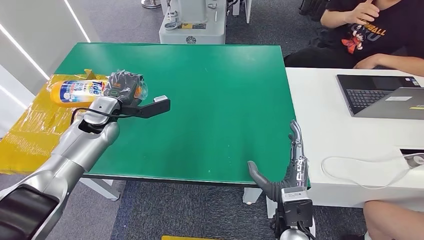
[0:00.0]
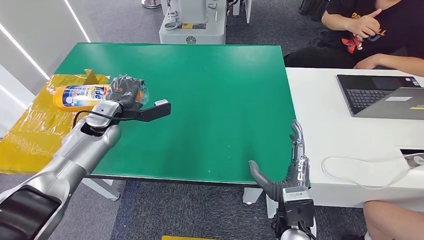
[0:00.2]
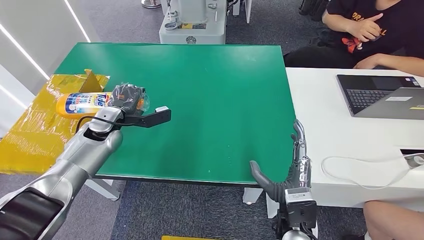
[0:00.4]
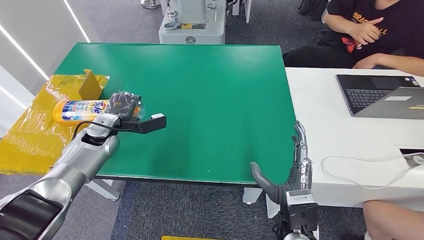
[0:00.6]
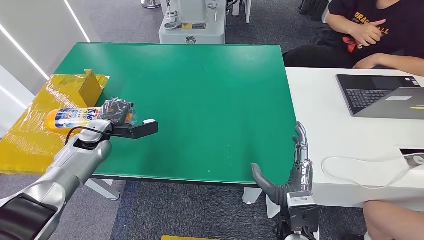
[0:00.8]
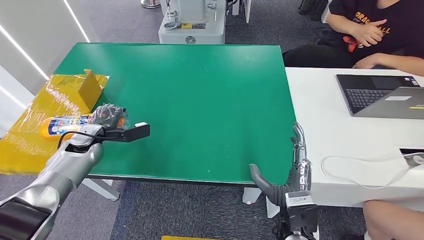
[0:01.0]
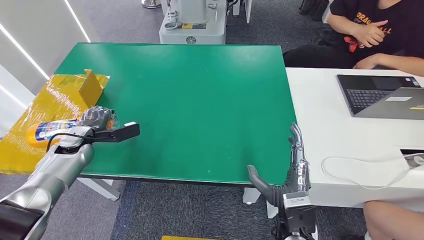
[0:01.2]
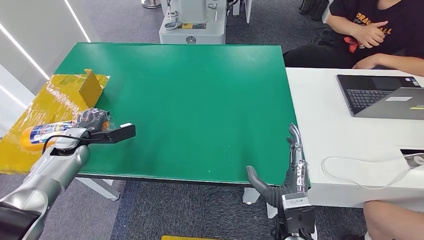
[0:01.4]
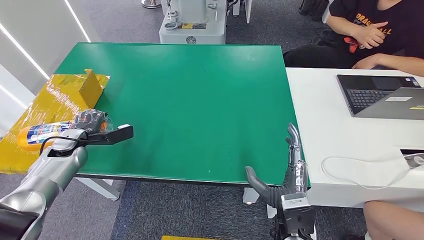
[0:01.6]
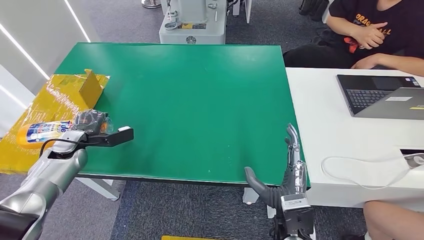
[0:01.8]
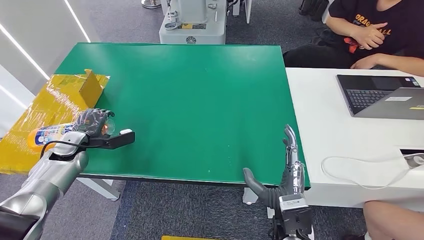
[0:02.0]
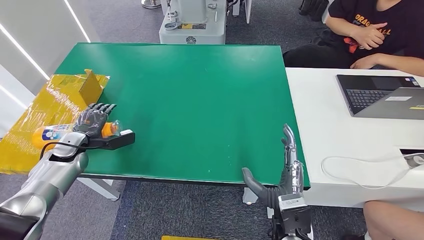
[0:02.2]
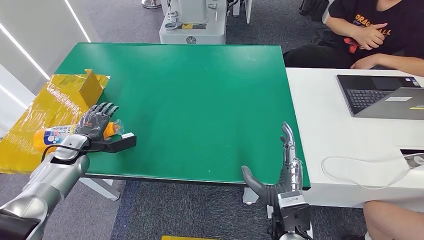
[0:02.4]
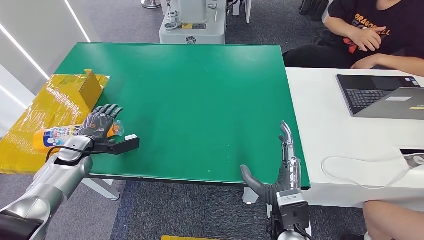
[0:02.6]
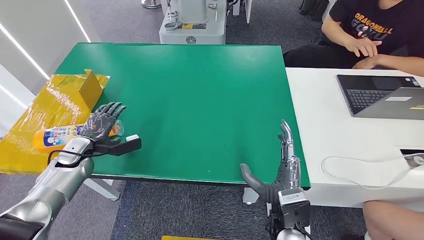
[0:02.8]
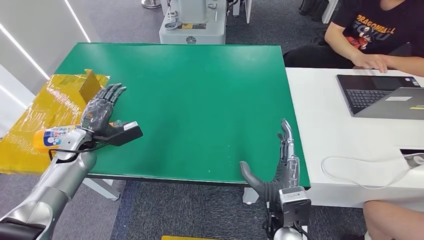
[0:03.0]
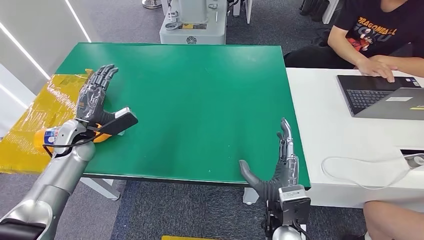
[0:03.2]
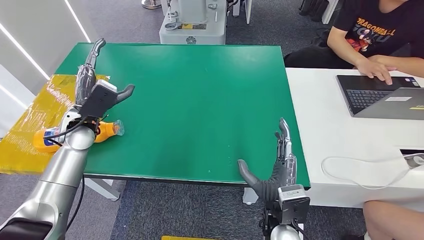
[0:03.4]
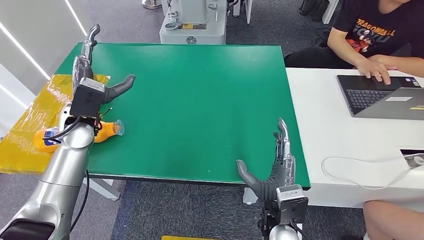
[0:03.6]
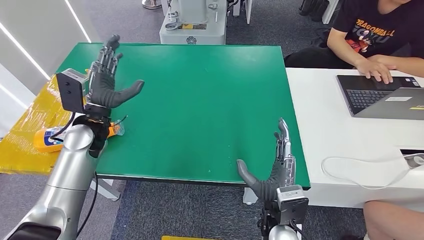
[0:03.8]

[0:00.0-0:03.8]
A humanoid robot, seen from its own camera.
Step, 0:00.0 to 0:03.8: Turn the bottle to the front side.
0:00.0 to 0:01.2: The left hand travels to the left and downward by about 15 cm.
0:01.2 to 0:02.6: The hands stay close to where they were, moving slightly.
0:02.6 to 0:03.8: The left hand goes about 20 cm to the right and upward.

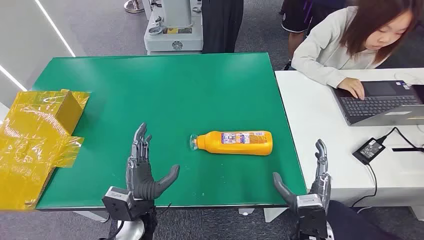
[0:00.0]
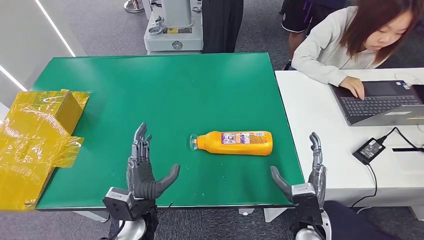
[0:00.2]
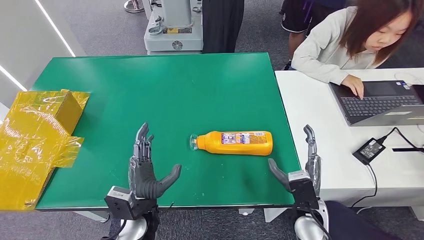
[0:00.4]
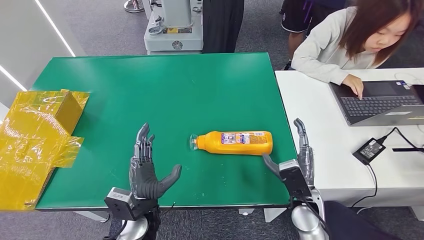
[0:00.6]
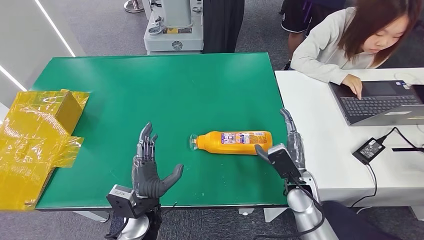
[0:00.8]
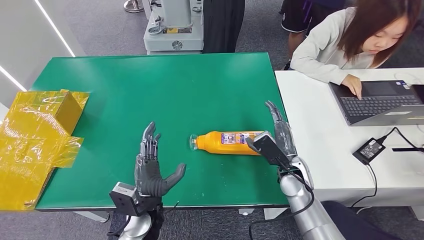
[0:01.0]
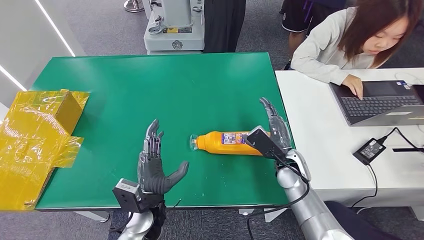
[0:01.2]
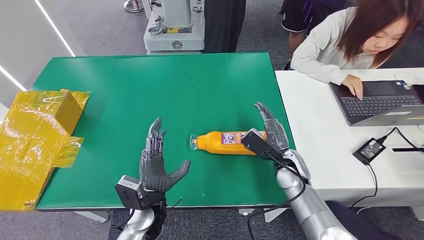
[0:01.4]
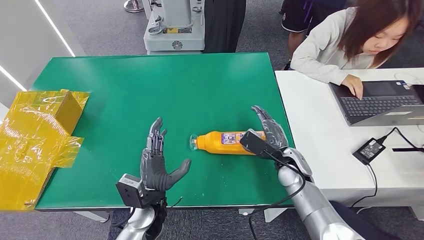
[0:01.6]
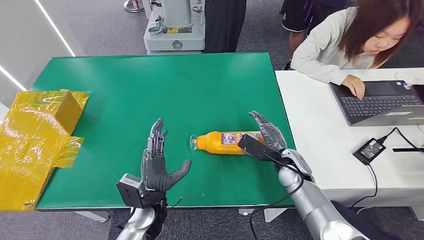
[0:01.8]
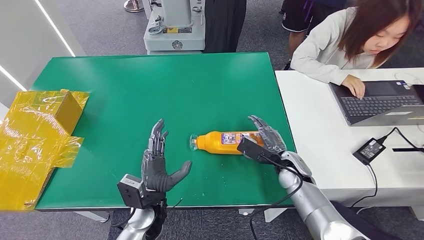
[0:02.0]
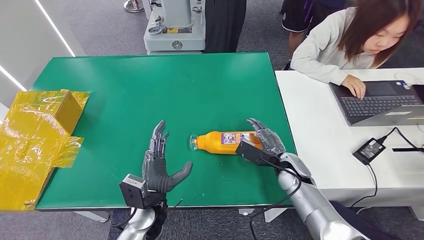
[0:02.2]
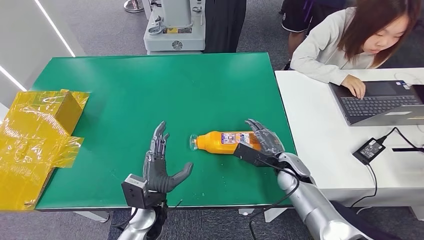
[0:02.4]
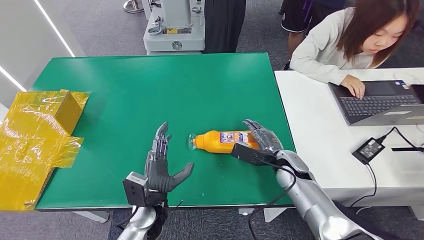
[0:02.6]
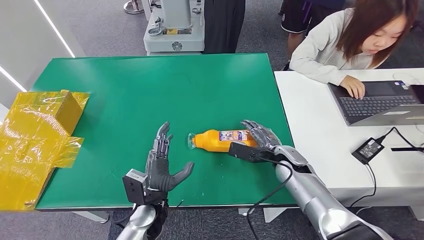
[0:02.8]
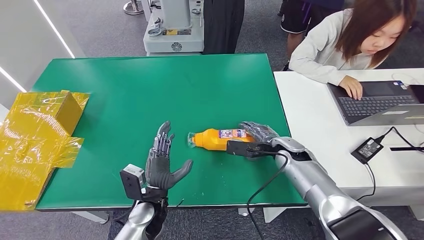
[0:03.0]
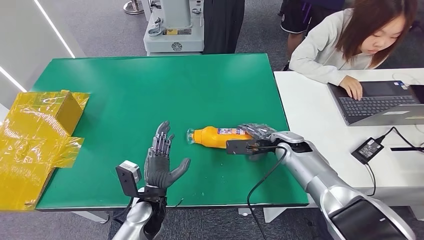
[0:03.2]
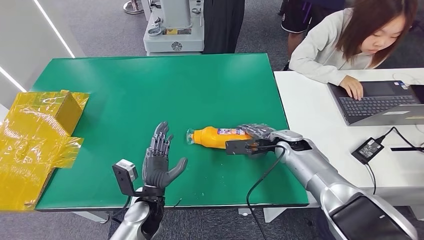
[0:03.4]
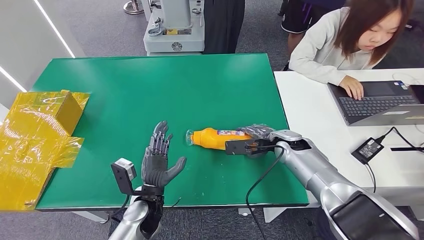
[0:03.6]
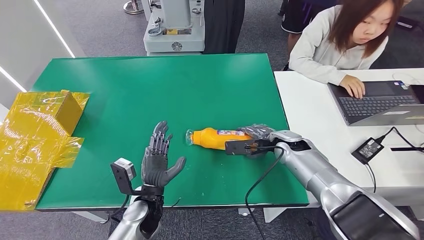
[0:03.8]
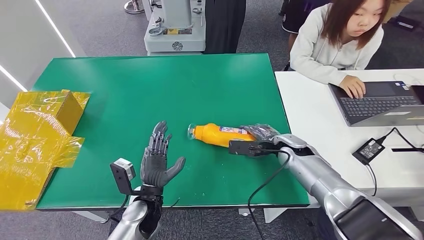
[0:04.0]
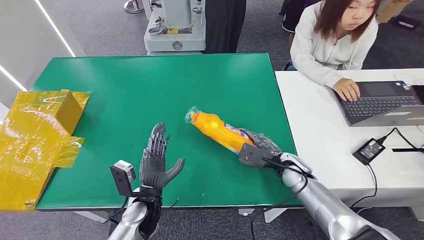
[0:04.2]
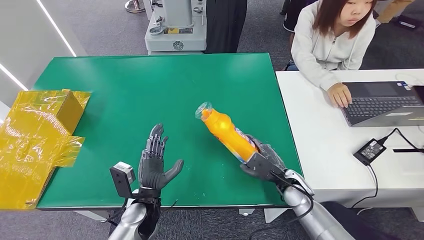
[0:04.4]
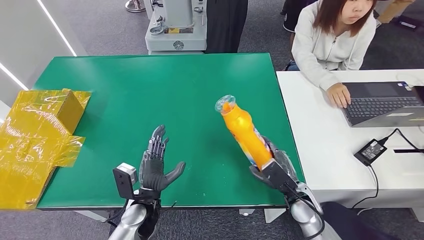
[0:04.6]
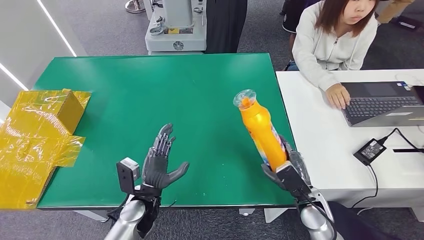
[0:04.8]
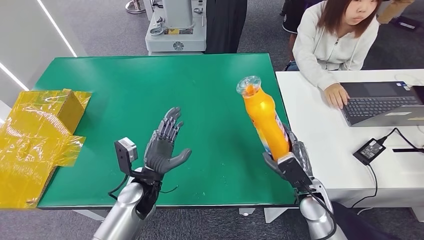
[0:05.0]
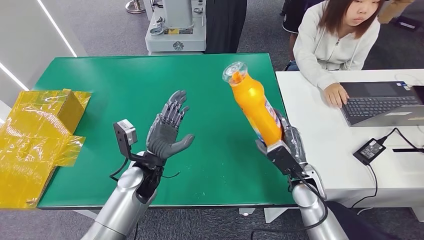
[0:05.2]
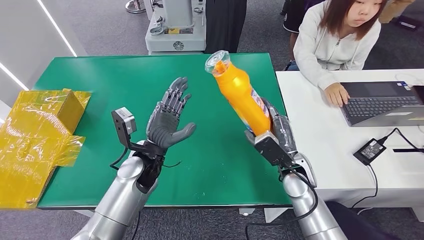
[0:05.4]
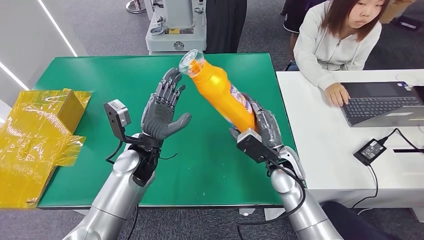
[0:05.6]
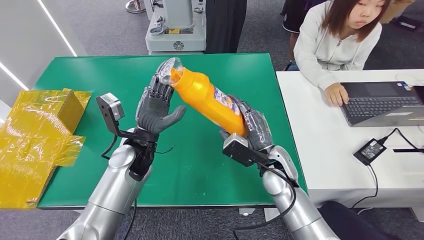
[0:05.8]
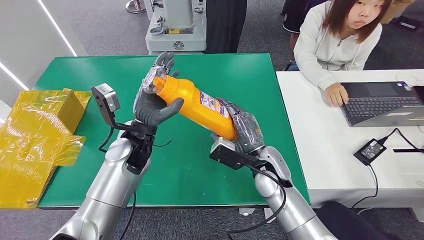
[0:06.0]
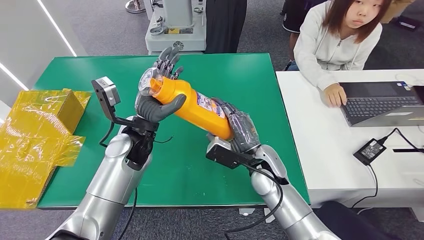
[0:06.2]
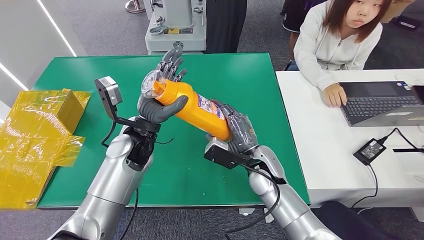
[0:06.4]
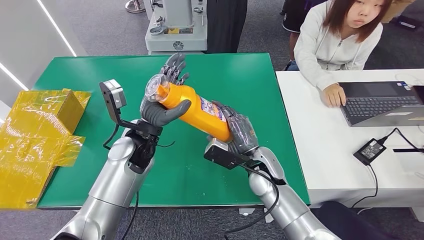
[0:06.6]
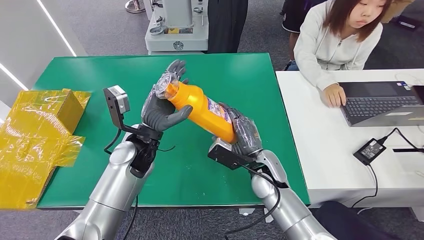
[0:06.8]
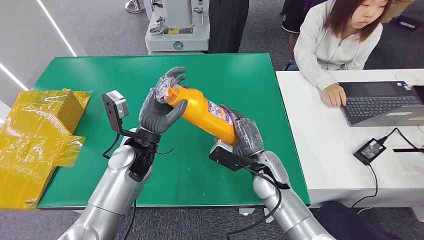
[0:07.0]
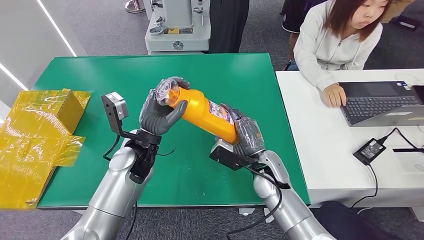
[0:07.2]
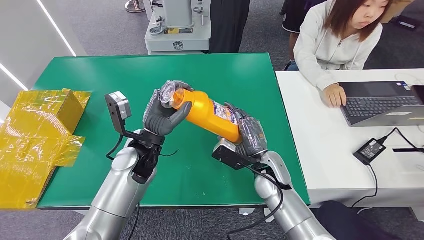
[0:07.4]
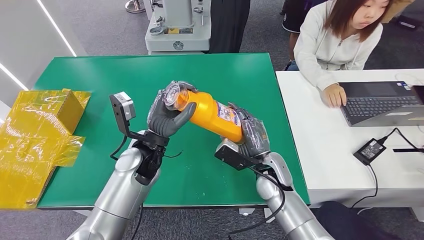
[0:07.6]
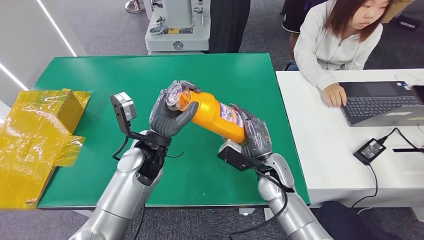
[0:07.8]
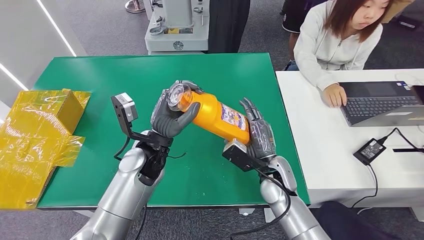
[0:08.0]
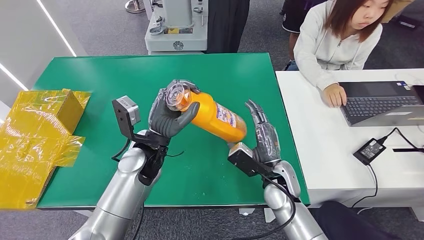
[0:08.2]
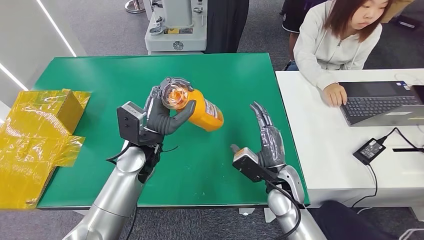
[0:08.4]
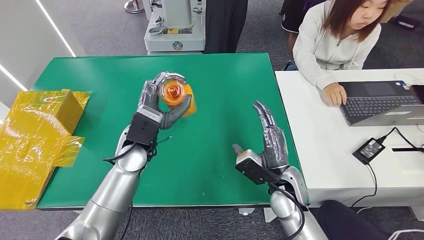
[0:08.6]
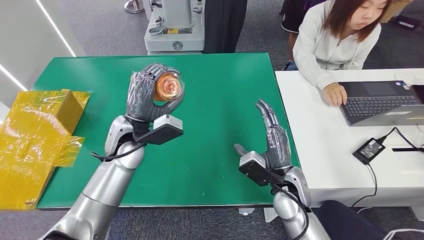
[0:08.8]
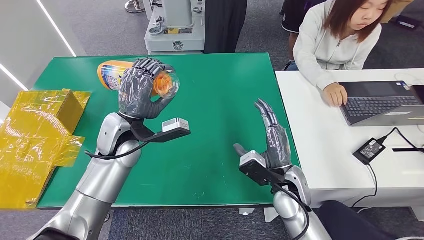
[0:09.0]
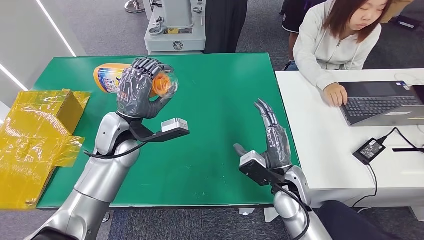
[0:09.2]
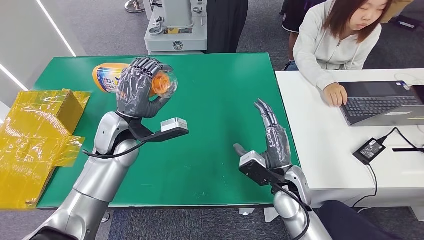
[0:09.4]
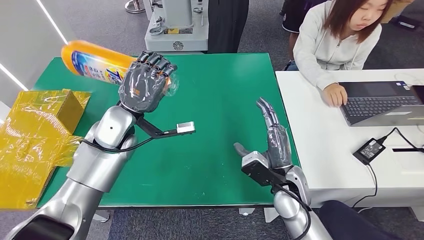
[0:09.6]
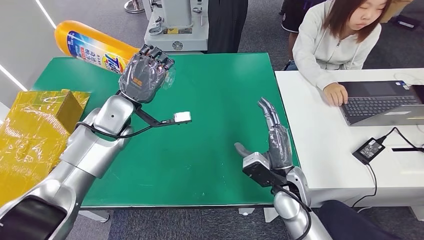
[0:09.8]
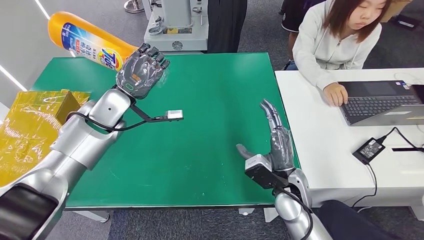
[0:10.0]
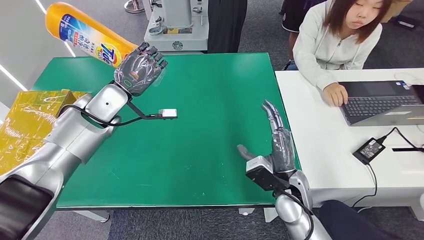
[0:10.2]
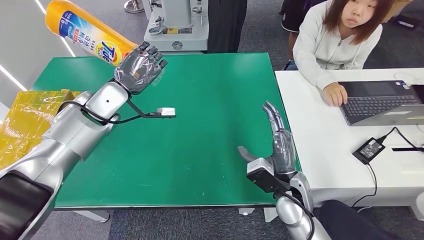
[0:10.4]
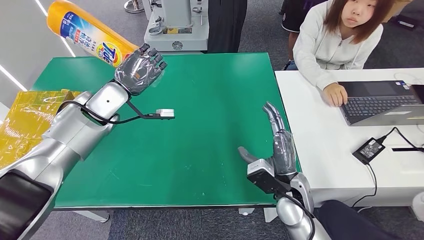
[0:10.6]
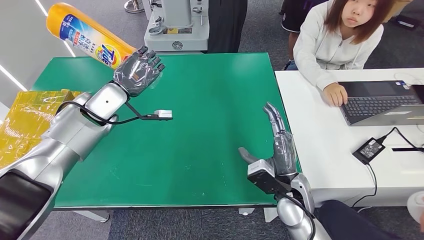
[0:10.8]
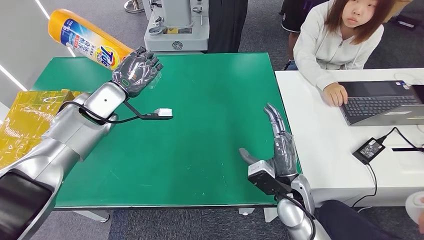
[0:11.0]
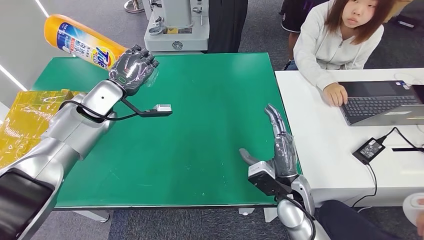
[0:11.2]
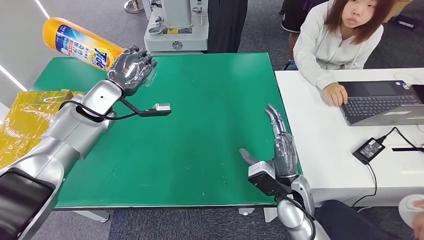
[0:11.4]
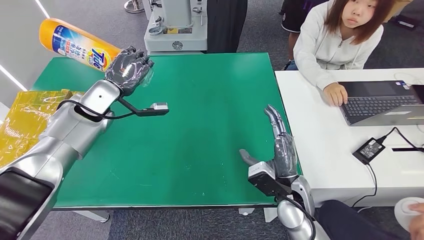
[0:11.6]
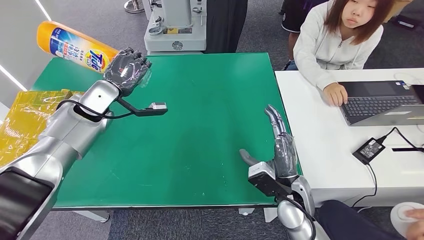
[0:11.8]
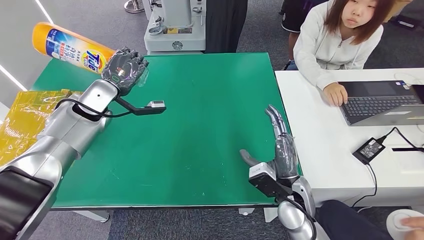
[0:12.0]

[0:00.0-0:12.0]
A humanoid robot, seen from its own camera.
Step, 0:00.0 to 0:06.4: Pick up the bottle from the table.
0:06.0 to 0:07.6: The hands stay close to where they were, moving slightly.
0:10.4 to 0:12.0: The hands make only small movements.

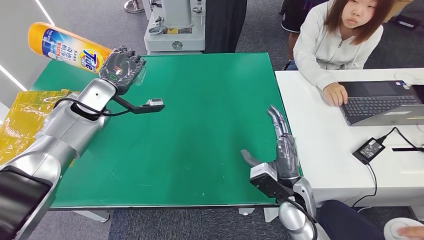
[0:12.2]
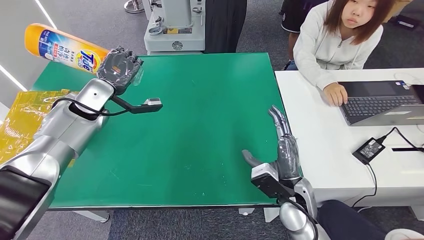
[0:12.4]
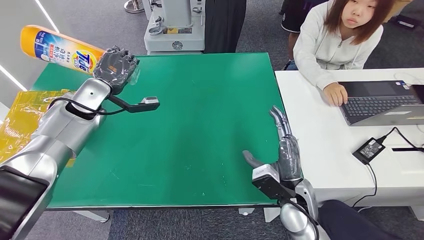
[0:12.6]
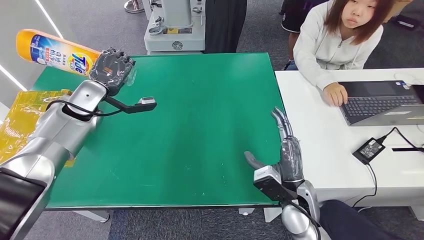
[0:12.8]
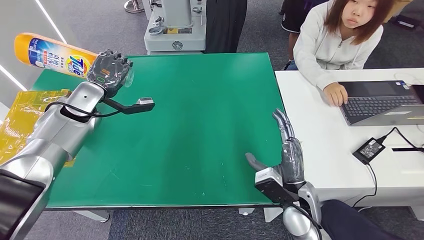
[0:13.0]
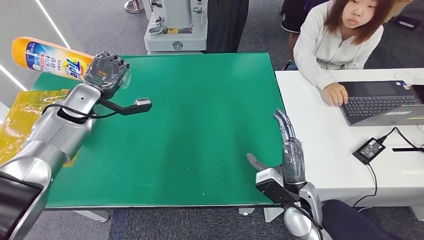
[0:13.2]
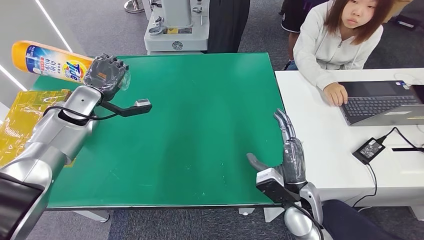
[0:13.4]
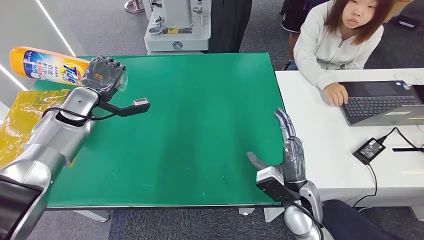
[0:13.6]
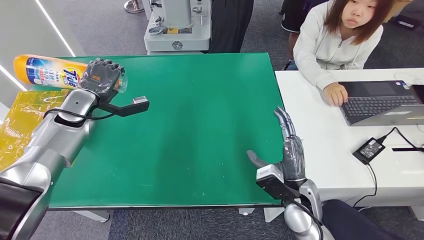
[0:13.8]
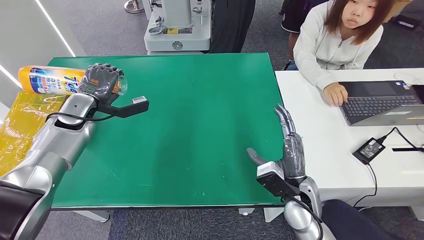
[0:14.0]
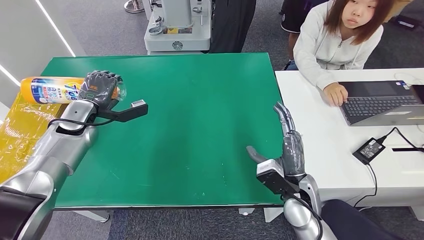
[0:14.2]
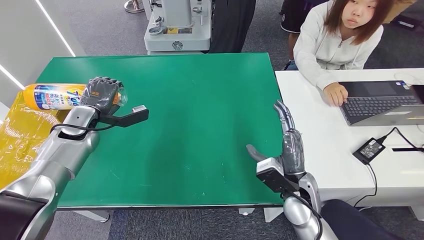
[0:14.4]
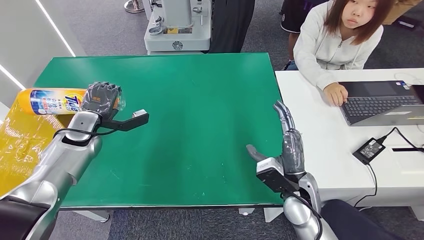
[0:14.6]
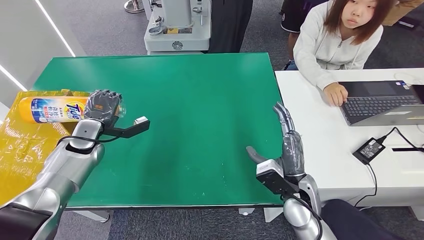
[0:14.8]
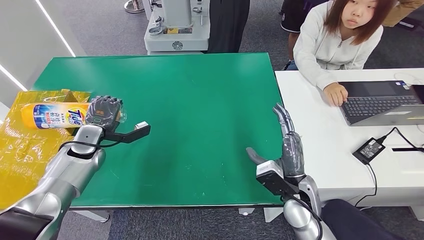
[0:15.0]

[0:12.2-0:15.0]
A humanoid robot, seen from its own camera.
0:12.2 to 0:13.6: The left hand moves roughly 5 cm.
0:13.6 to 0:15.0: The left hand is displaced downward and backward by about 10 cm.
